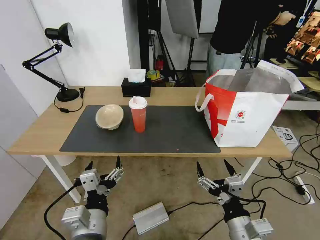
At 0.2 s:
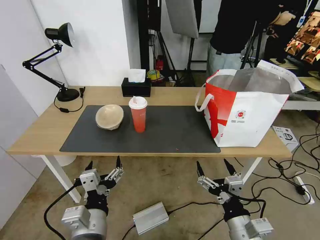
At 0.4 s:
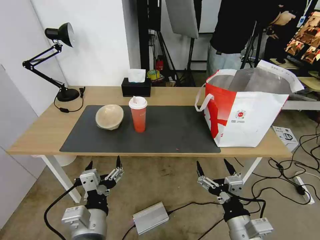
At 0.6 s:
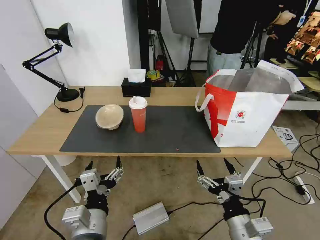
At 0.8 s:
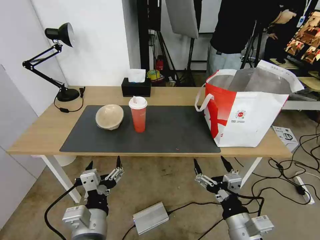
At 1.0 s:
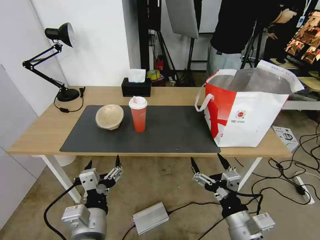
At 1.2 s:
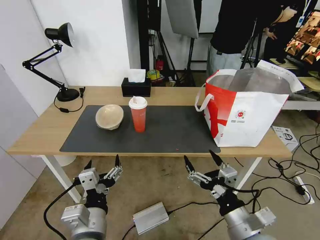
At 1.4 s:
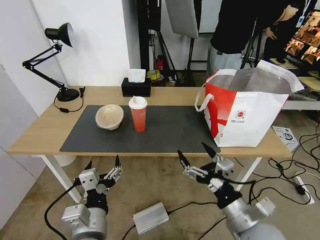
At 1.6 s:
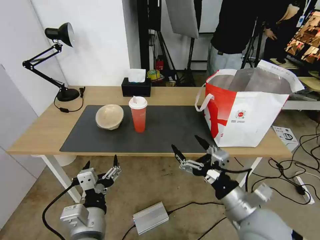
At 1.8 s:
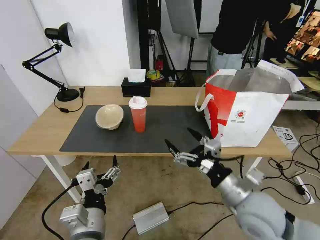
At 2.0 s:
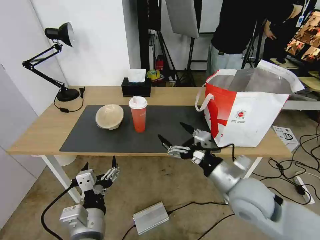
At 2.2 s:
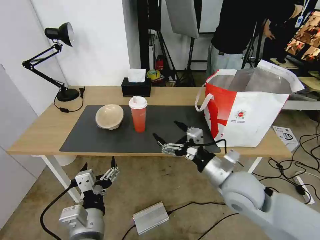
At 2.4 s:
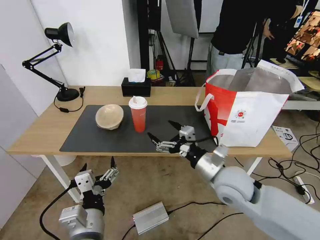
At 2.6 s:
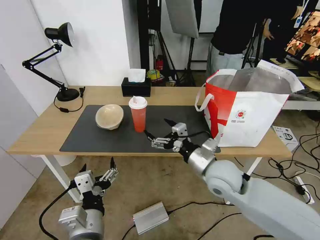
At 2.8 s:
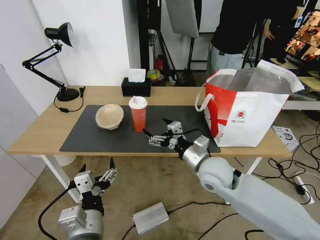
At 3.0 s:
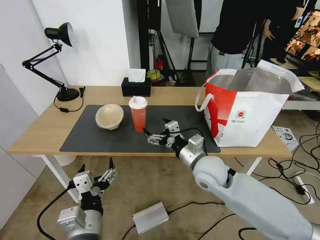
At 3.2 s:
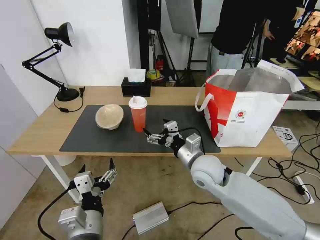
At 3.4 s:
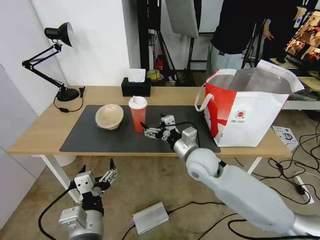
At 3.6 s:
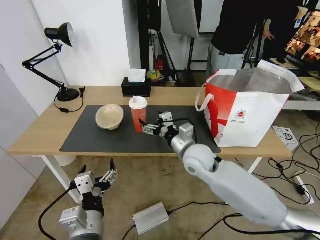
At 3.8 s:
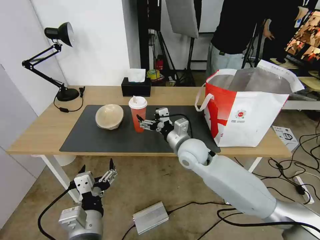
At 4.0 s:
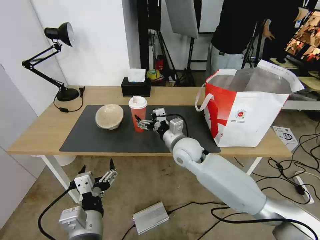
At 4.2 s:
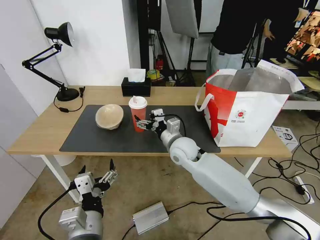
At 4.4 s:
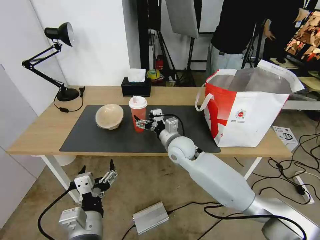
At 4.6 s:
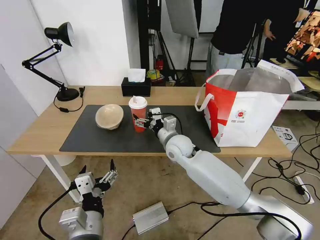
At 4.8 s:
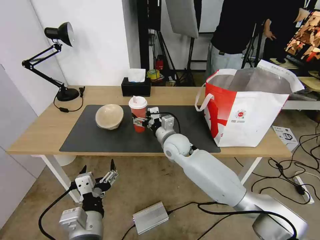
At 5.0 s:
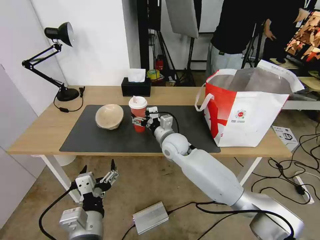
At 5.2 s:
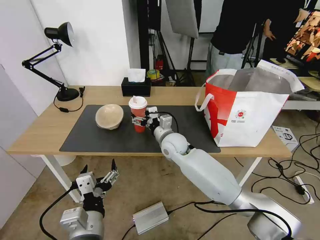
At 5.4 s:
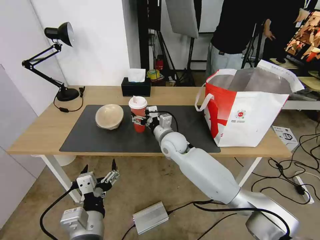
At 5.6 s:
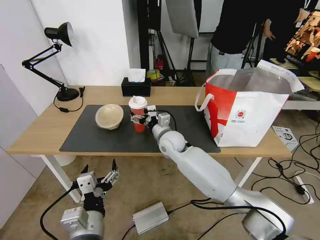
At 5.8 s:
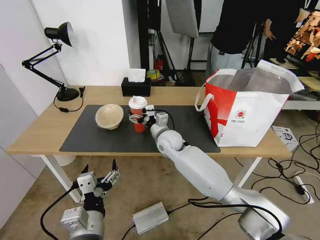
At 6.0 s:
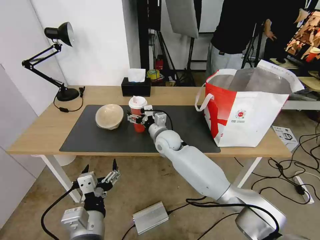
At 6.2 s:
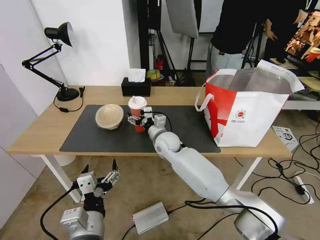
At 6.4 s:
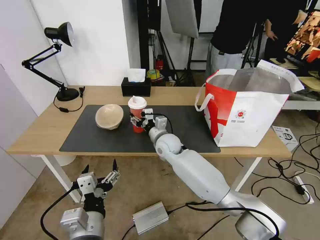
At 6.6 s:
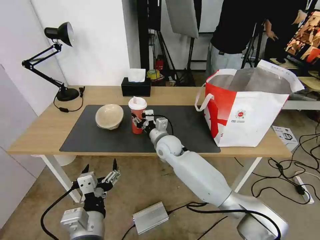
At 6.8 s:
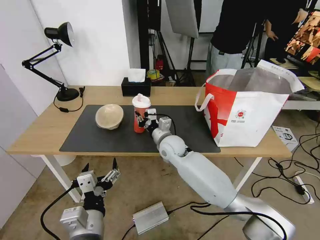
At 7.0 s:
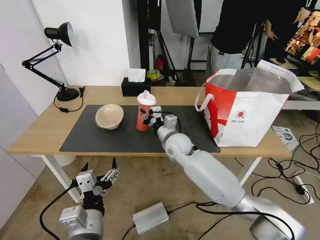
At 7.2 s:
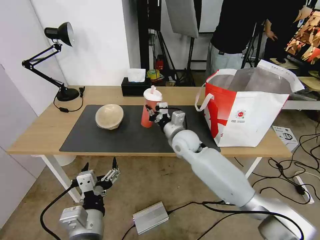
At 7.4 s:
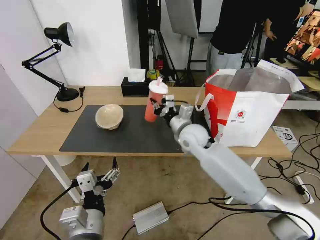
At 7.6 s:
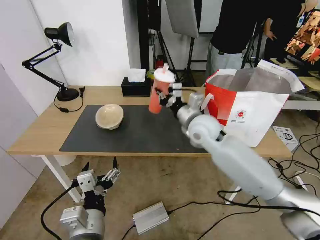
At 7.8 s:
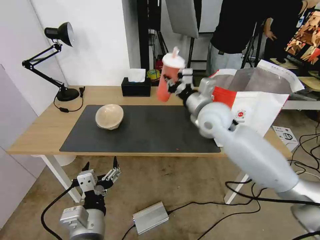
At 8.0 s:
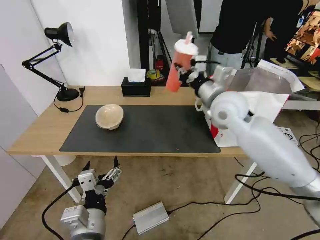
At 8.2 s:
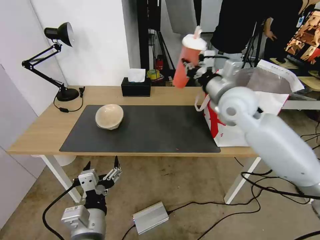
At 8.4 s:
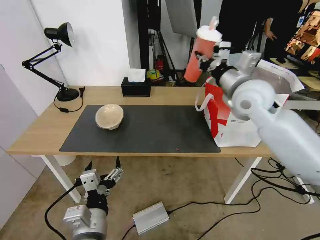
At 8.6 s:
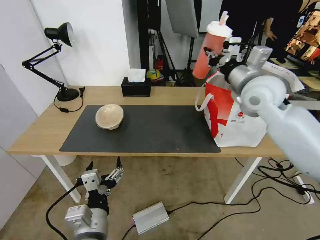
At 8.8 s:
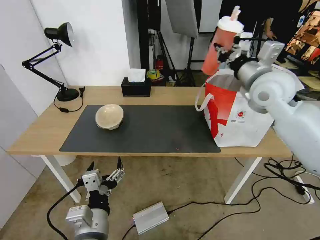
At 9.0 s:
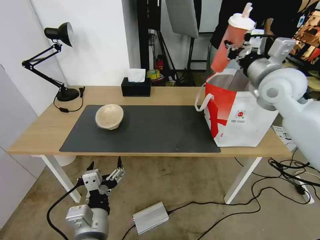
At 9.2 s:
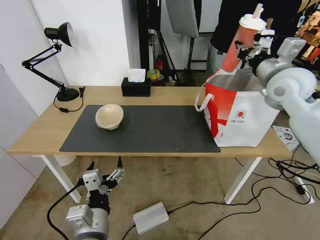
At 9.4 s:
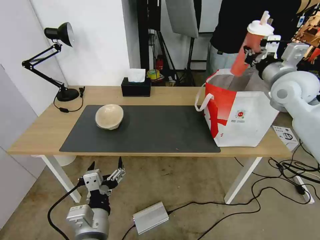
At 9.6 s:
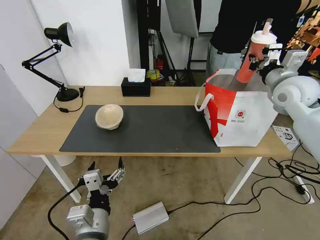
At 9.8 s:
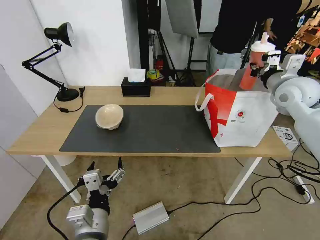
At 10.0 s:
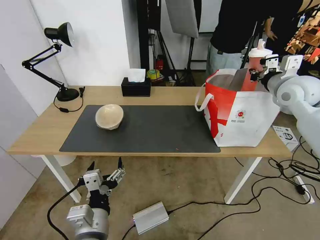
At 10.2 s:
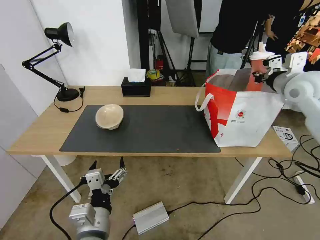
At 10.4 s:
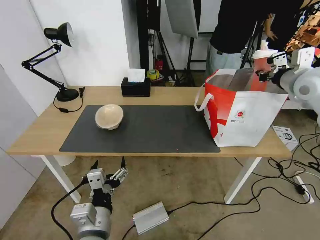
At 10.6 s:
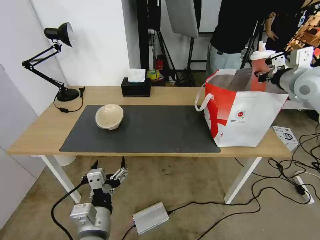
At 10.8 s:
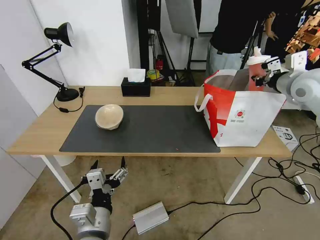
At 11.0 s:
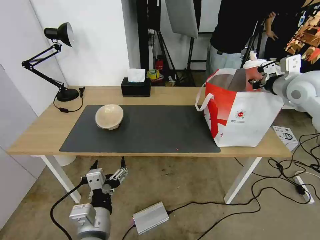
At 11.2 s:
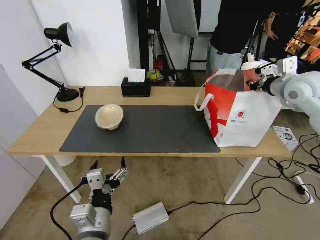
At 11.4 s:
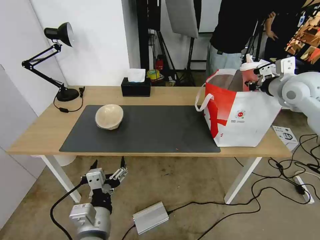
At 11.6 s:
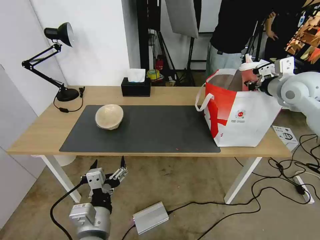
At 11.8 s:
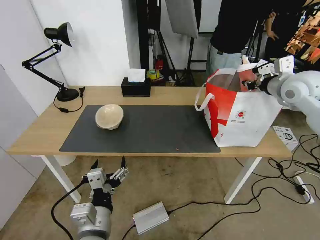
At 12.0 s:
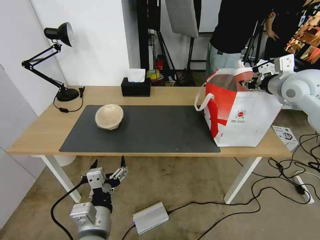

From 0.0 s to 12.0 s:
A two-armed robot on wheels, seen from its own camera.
Task of the whole recording: Pick up the trash from the table and place it into the takeout bag.
From 0.0 s to 1.6 s: The right gripper travels forward and upward by about 10 cm.
From 1.6 s to 3.0 s: The right gripper moves forward and to the left, roughly 15 cm.
From 3.0 s to 4.4 s: The right gripper moves forward and to the left, roughly 10 cm.
From 4.4 s to 6.0 s: The right gripper shifts some 5 cm forward.
From 6.0 s to 7.6 s: The right gripper is displaced upward and to the right by approximately 15 cm, and closes.
From 7.6 s to 9.0 s: The right gripper moves to the right and upward, roughly 20 cm.
From 9.0 s to 10.4 s: The right gripper goes some 10 cm to the right.
From 10.4 s to 12.0 s: The right gripper opens up.

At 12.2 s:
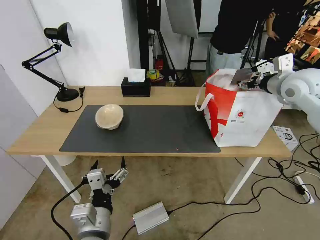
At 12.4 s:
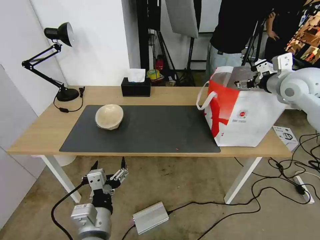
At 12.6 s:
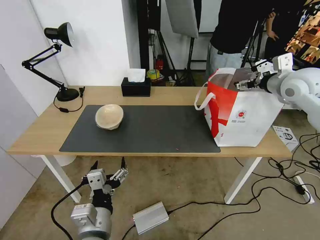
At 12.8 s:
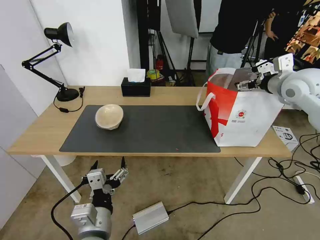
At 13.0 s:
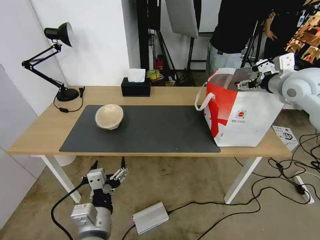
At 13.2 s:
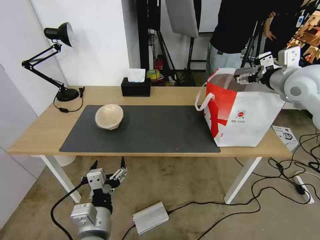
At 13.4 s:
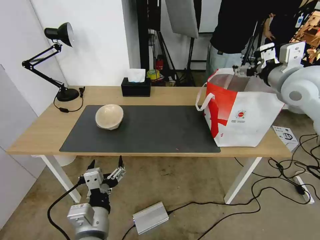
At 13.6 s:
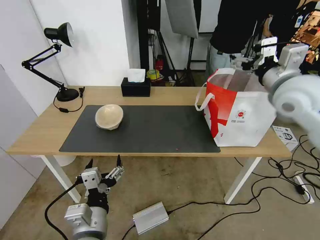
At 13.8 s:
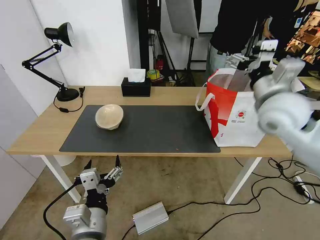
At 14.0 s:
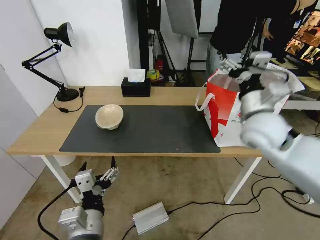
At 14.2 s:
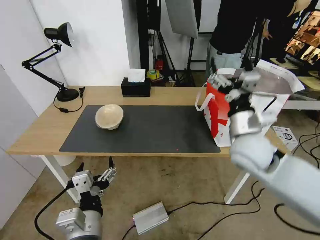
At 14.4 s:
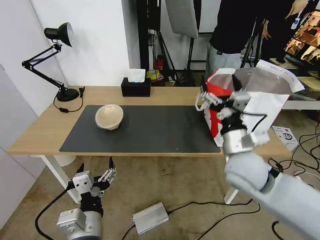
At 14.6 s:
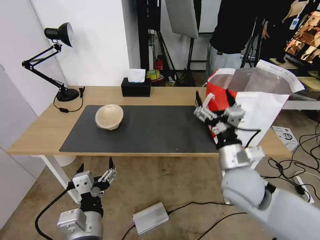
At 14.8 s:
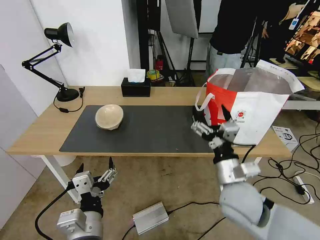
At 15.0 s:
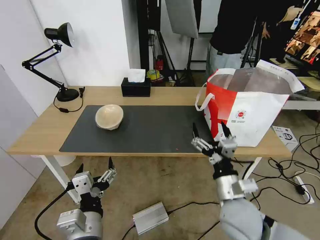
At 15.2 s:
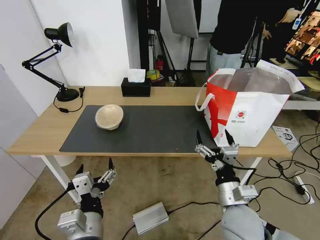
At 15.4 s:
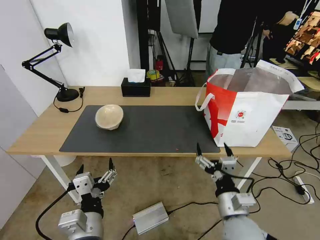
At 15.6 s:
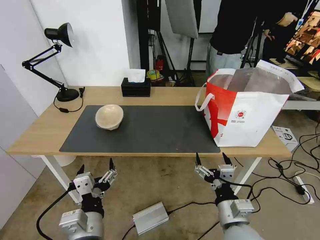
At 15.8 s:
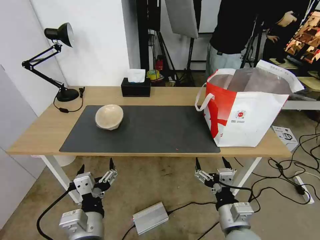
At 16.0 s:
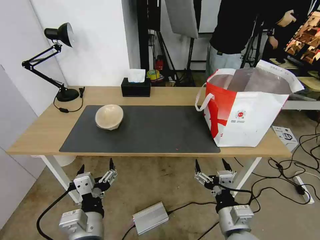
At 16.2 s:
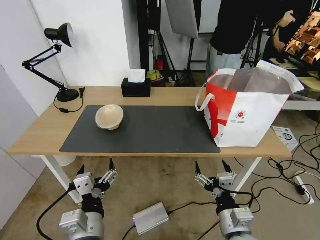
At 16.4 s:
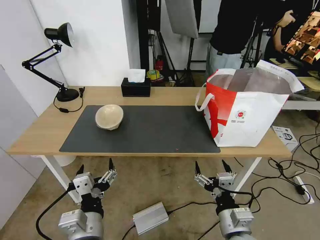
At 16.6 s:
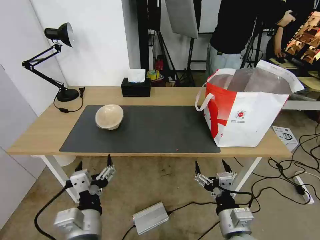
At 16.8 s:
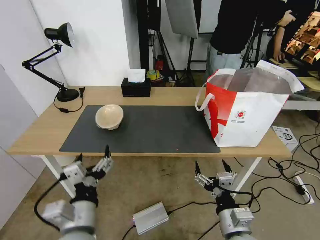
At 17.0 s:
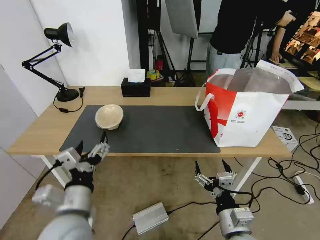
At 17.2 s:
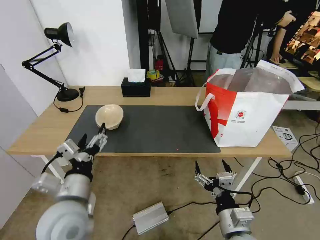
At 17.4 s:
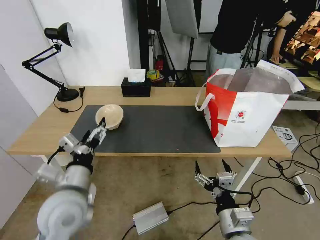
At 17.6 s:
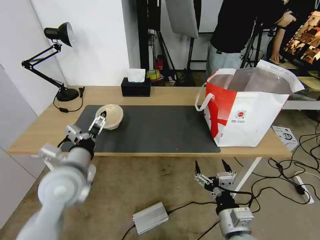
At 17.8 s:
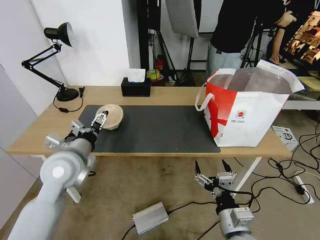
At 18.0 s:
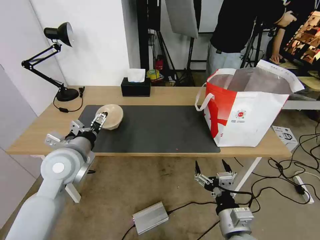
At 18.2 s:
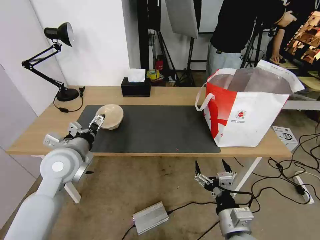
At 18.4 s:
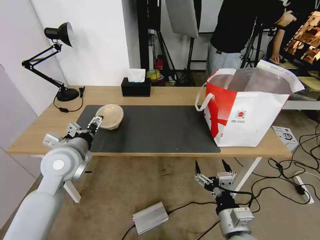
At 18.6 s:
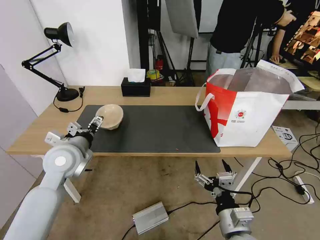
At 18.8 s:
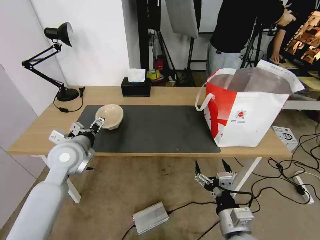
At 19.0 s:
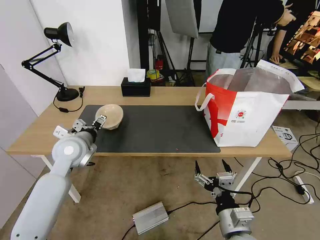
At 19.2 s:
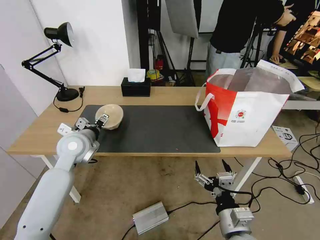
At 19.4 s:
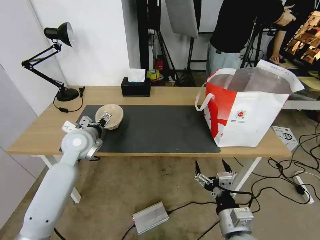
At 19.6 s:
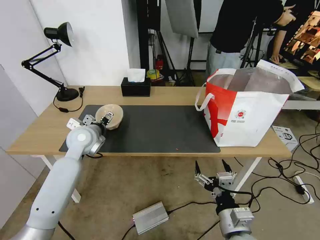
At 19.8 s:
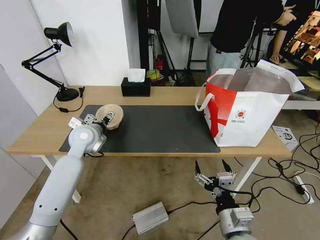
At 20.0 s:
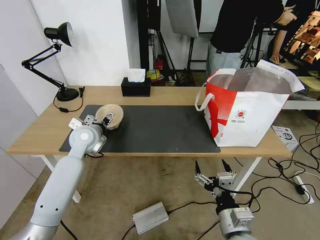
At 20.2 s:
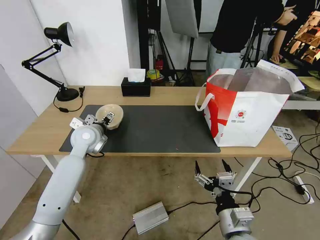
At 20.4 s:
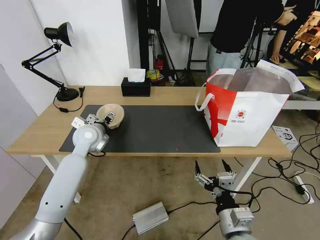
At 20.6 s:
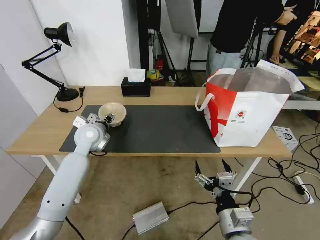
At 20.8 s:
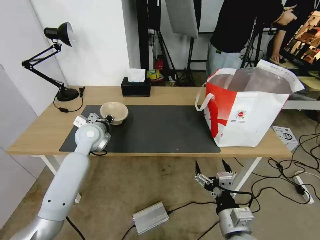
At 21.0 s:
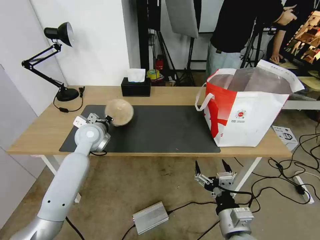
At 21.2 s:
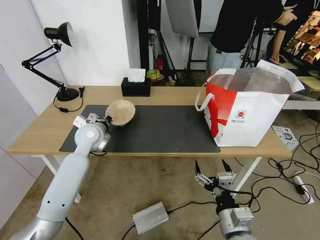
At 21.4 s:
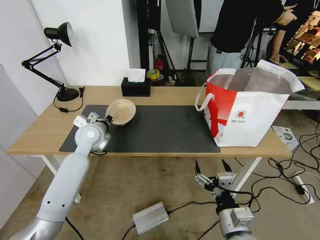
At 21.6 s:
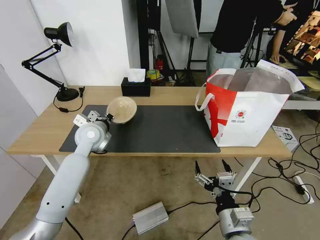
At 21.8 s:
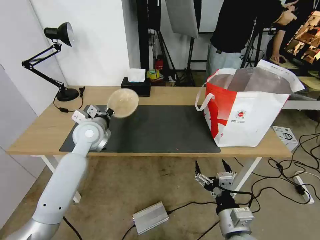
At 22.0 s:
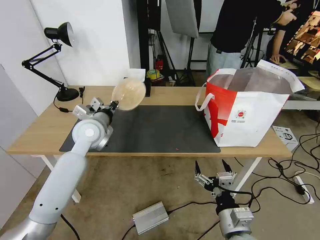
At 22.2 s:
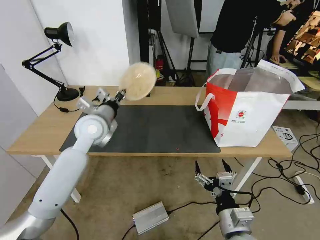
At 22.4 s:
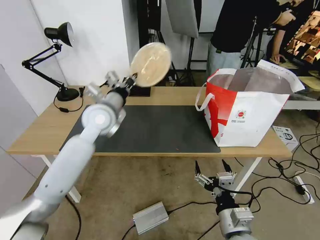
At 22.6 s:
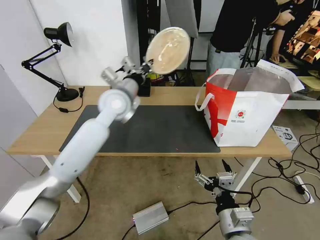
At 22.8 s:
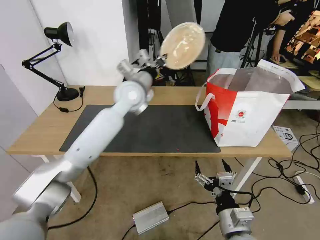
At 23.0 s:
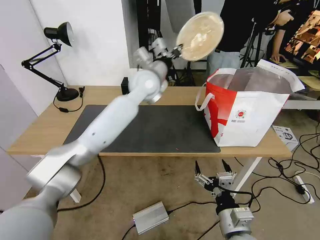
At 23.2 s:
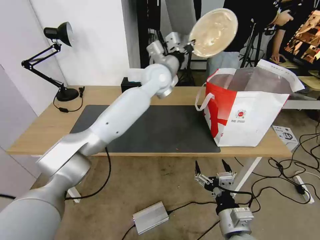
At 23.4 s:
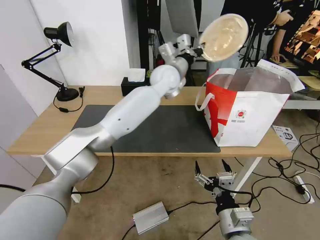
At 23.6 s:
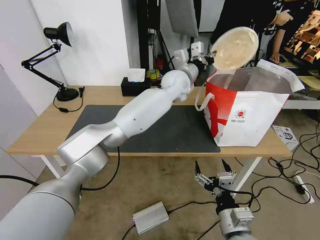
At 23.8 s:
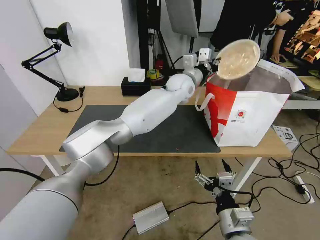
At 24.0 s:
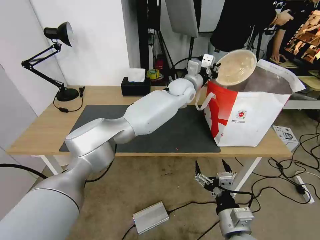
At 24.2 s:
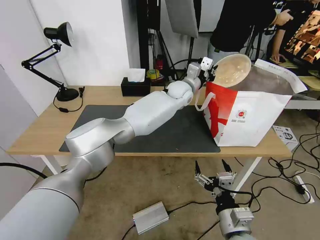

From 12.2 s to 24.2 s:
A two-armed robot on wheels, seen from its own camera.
Task of the whole recording: Pick up the trash from the table and place it into the takeout bag.
From 12.2 s to 13.8 s: The right gripper travels to the left and backward by approximately 15 cm.
From 13.8 s to 15.2 s: The right gripper travels downward and backward by approximately 30 cm.
From 15.2 s to 16.6 s: The right gripper travels backward by roughly 5 cm.
From 16.6 s to 18.2 s: The left gripper travels forward and to the left by some 20 cm.
From 18.2 s to 19.8 s: The left gripper shifts roughly 10 cm forward.
From 19.8 s to 21.2 s: The left gripper closes its fingers.
From 21.2 s to 22.6 s: The left gripper shifts roughly 15 cm upward and to the right.
From 22.6 s to 24.2 s: The left gripper shifts approximately 25 cm to the right and forward.
